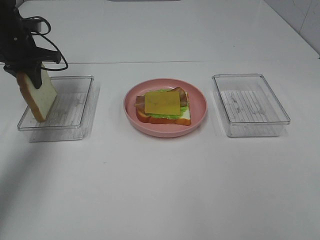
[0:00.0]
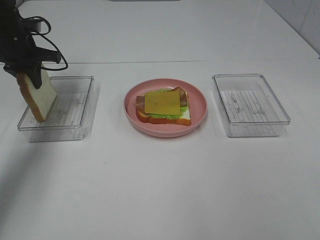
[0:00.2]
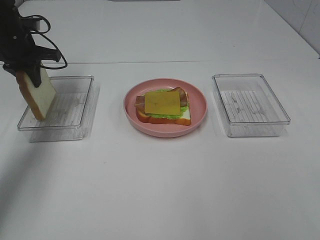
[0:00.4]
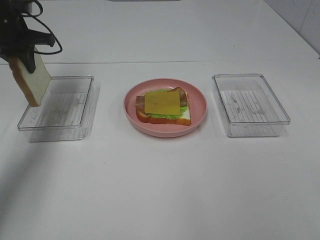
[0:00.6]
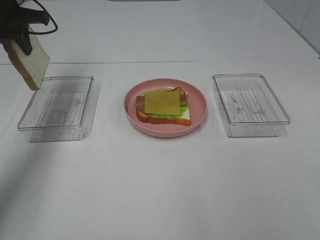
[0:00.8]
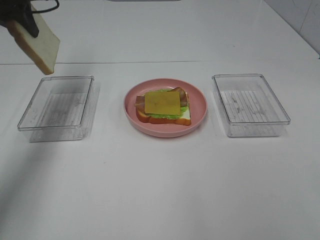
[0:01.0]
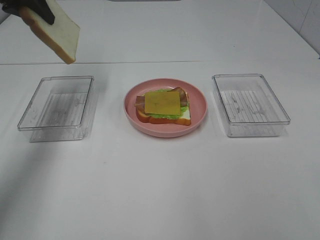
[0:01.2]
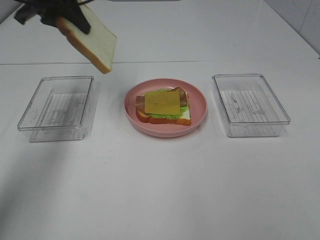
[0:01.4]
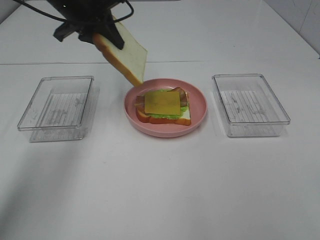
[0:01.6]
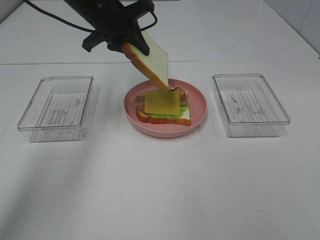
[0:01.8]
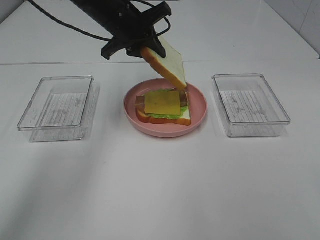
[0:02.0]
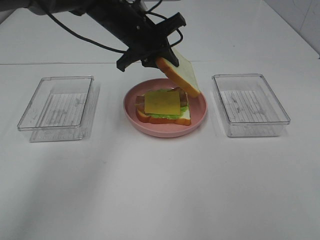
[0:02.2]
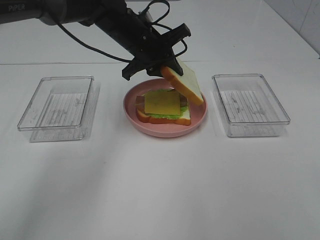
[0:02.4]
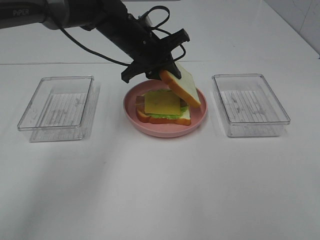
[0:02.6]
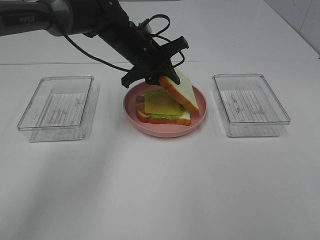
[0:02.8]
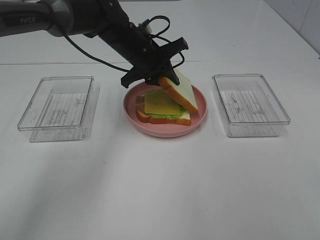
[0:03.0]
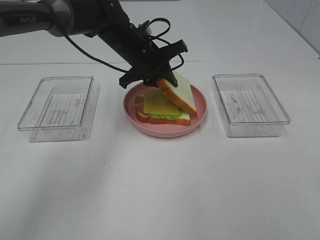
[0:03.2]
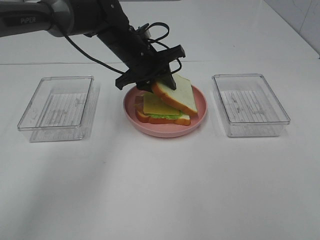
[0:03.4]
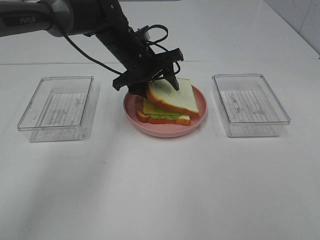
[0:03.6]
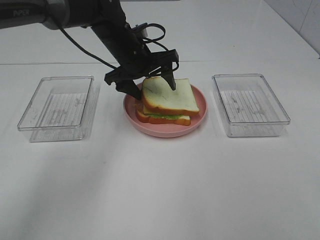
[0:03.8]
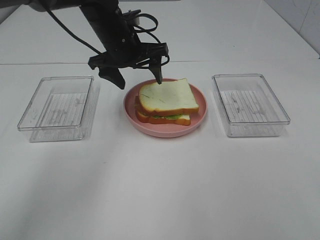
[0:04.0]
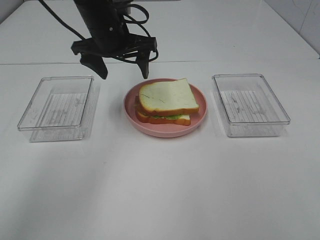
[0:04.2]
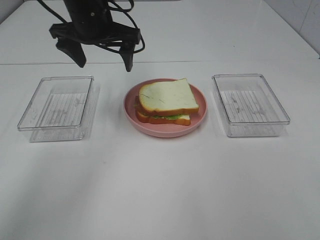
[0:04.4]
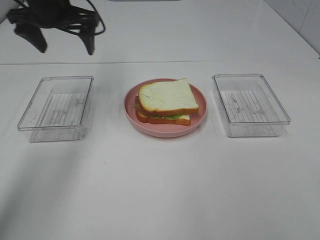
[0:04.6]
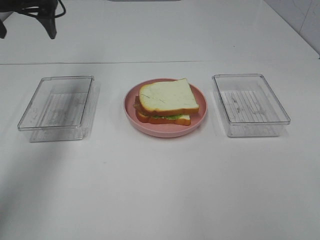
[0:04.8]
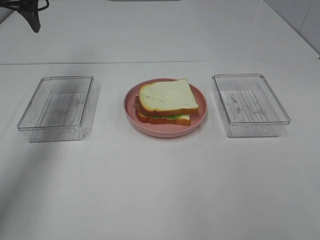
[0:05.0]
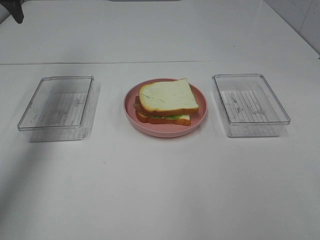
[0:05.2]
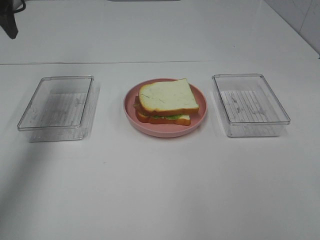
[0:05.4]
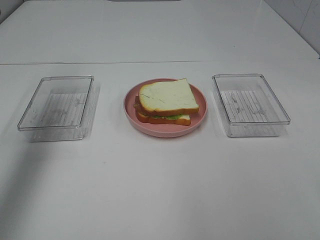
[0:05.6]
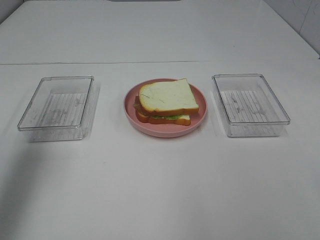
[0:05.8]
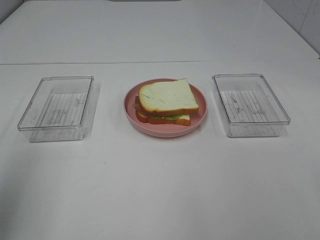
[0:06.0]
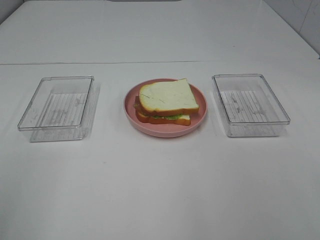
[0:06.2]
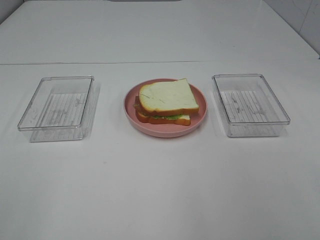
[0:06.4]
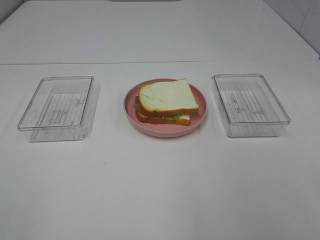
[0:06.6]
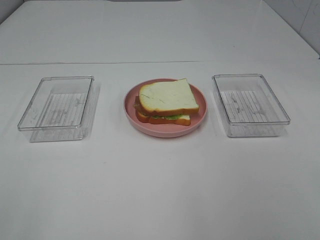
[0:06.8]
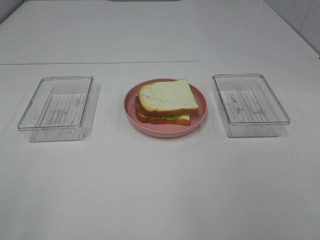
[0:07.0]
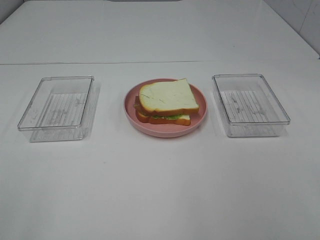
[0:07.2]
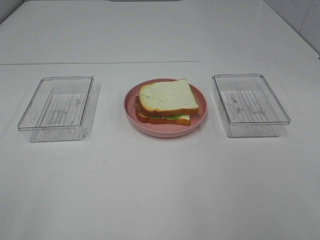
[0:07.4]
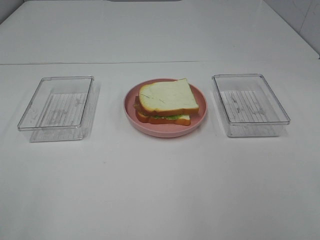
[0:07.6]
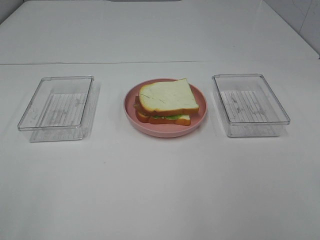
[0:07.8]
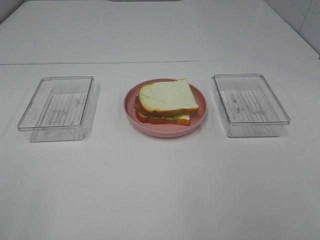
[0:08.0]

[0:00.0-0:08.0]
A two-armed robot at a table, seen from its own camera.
Task of the whole recording: Make sandwiches.
Step, 0:00.0 to 0:04.0: Left hand:place bacon on bacon.
0:00.0 to 0:01.6: The left gripper is displaced to the right and upward by some 15 cm.
0:01.6 to 0:03.2: The left gripper heads downward and to the right, covering some 15 cm.
0:03.2 to 0:04.8: The left gripper moves to the left and upward, approximately 25 cm, and opens.
0:04.8 to 0:06.4: The left gripper travels backward by some 50 cm.

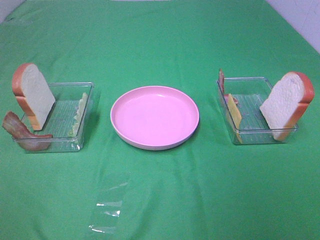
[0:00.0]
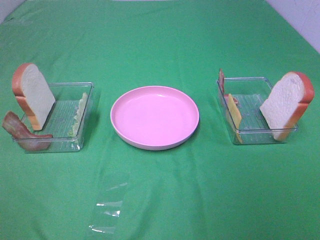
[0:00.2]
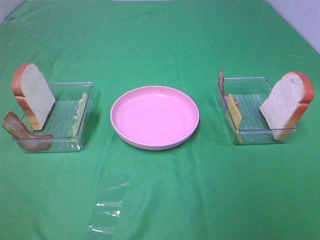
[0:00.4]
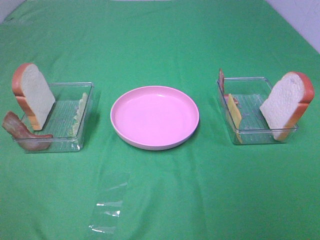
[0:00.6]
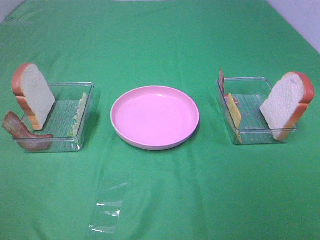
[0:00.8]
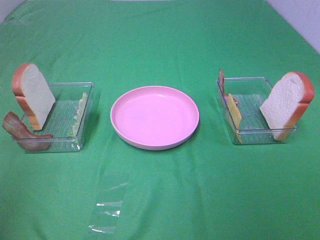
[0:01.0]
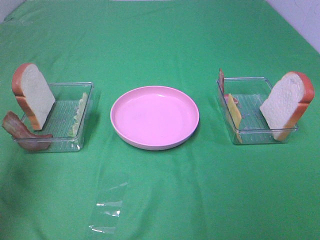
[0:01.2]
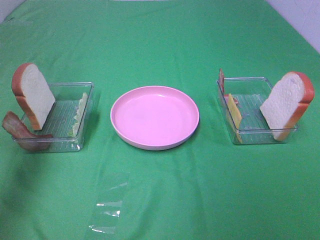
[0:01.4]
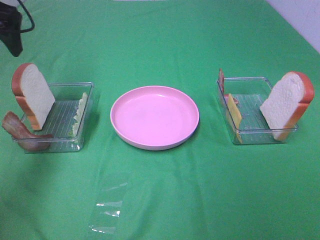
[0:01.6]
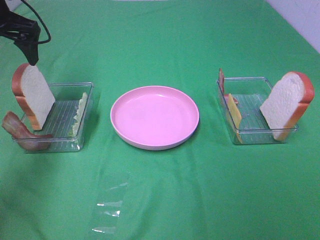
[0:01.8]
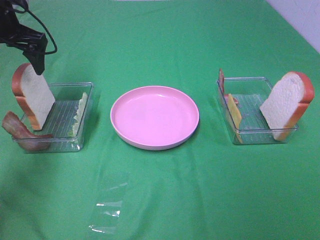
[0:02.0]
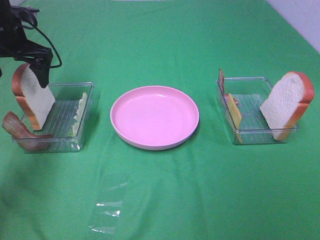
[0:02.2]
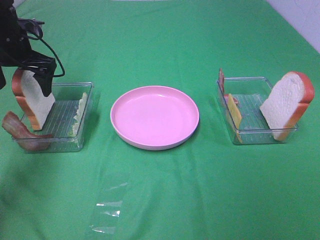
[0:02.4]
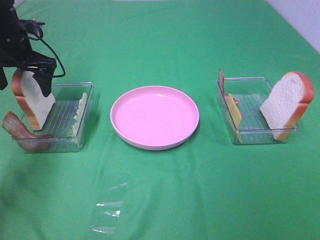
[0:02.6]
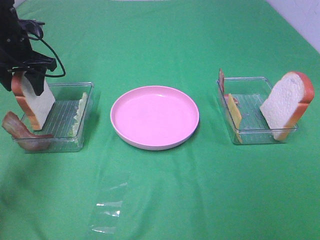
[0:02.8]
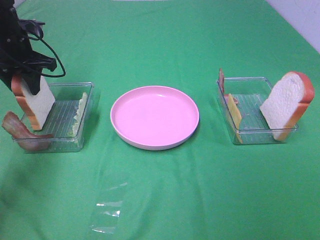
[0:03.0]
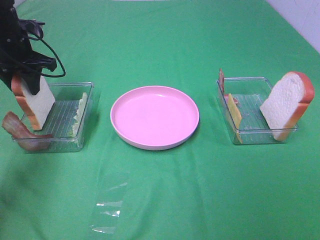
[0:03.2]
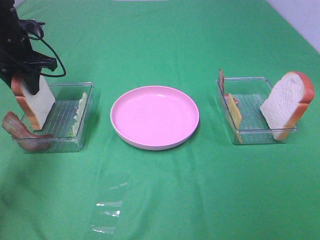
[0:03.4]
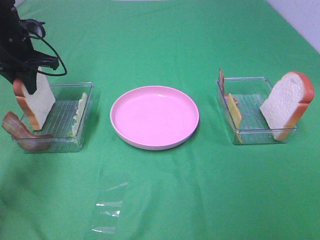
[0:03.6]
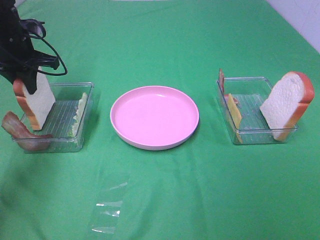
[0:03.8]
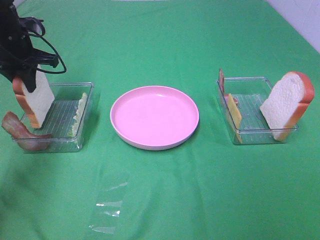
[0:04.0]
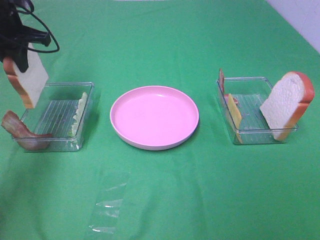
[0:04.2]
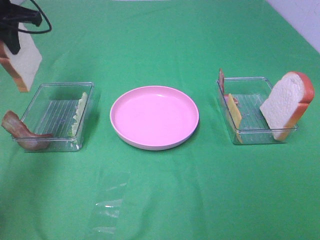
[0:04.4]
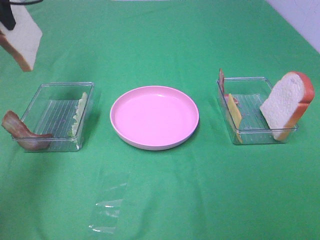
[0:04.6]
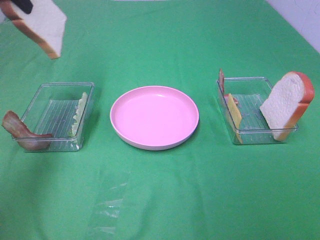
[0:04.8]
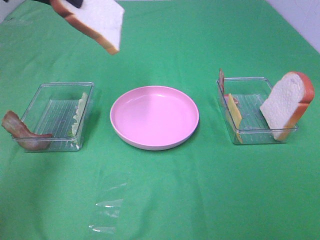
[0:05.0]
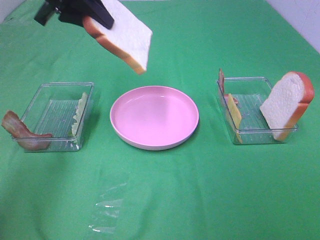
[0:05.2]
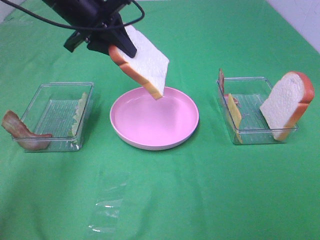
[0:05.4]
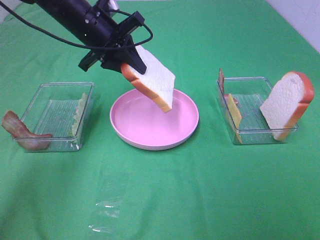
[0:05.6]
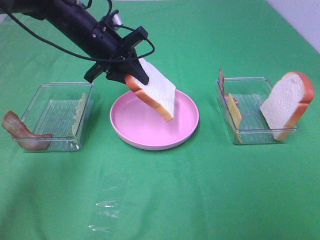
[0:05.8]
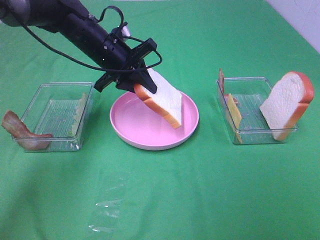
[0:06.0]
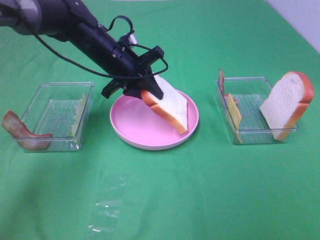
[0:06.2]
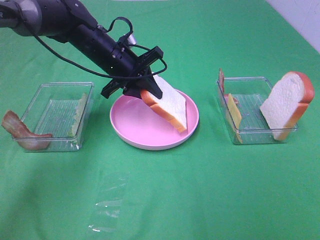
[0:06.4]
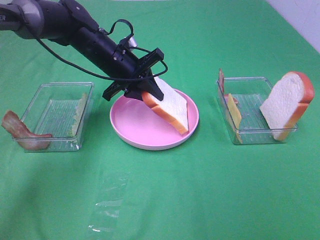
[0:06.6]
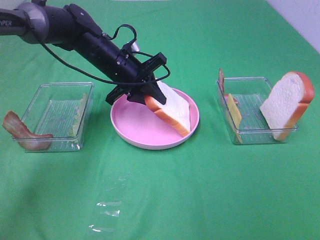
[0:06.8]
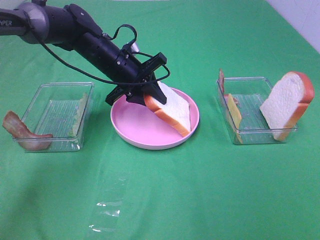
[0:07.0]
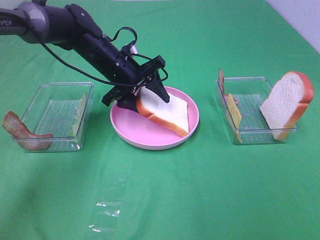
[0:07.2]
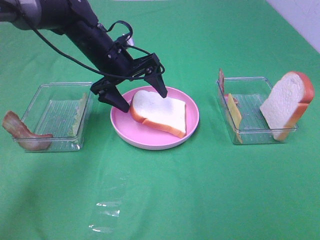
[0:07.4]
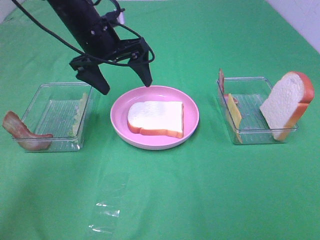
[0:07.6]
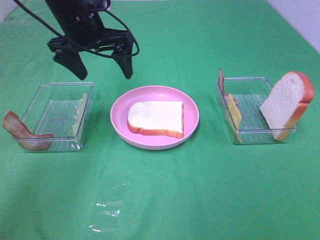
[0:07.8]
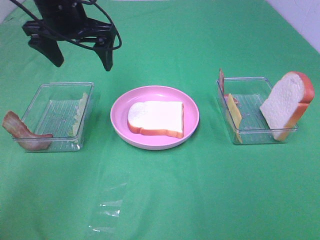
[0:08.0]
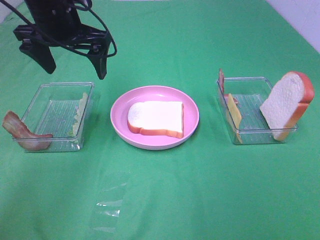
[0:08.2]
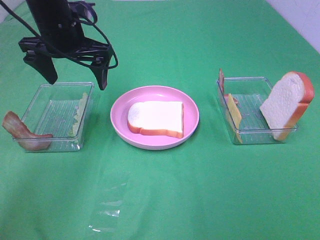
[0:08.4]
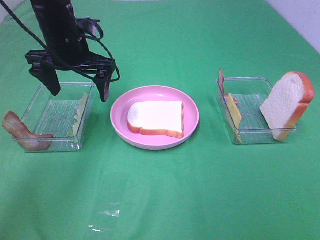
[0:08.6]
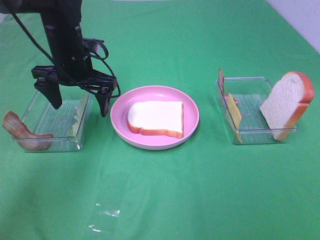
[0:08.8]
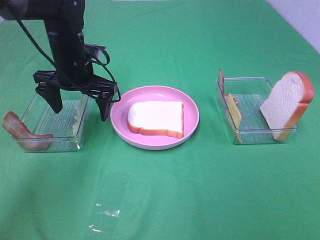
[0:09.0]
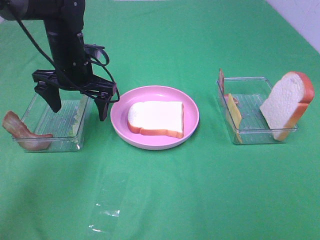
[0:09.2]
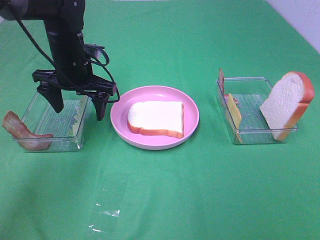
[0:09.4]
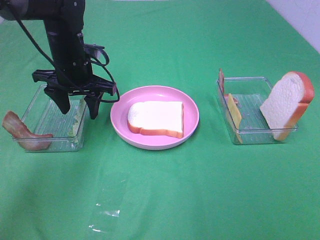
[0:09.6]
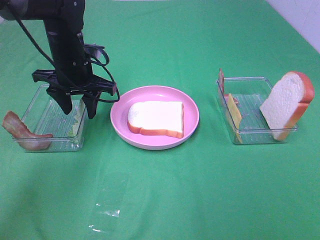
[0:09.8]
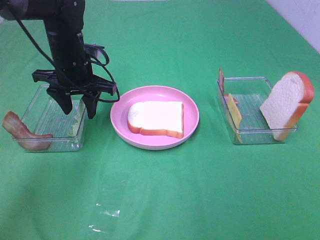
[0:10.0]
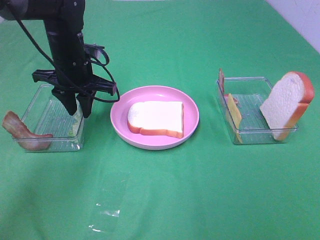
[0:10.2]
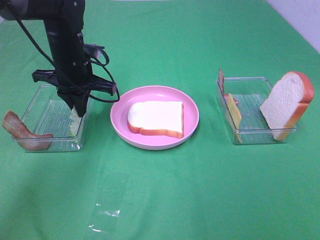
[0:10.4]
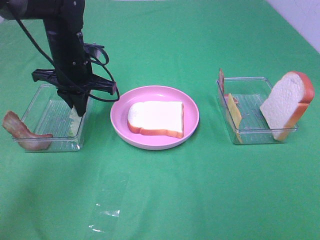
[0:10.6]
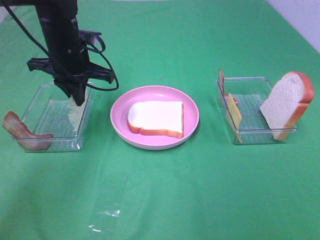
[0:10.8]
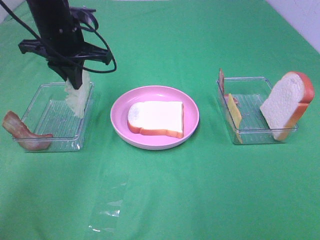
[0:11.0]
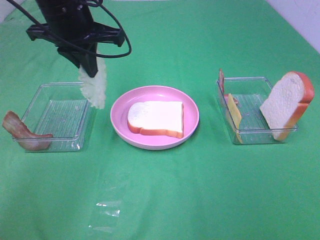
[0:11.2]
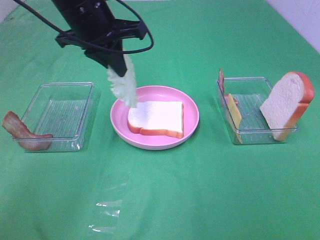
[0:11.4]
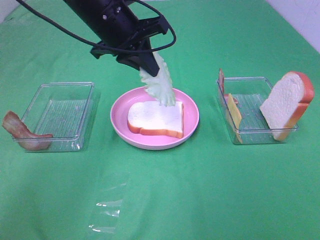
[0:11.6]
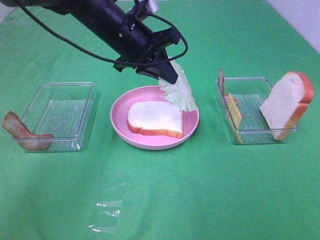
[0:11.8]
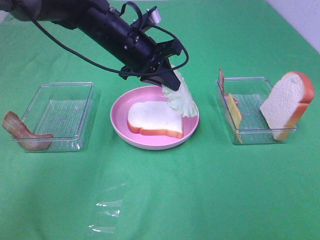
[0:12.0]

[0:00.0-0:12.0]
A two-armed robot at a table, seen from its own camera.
Task of the whole recording: Make sandwiches.
Step, 0:00.0 to 0:03.8: Left hand:grab the bread slice.
Step, 0:04.0 to 0:07.4: Left hand:place the bread slice on the plate.
Step, 0:07.6 to 0:10.6: Left hand:grab the lettuce slice.
0:00.0 to 0:01.6: The left gripper heads forward, covering about 40 cm.
0:01.6 to 0:03.0: The left gripper goes roughly 15 cm downward and forward, and closes up.
0:03.0 to 0:04.4: The left gripper travels upward by some 10 cm.
0:04.4 to 0:06.0: The left gripper heads to the right and downward, covering some 20 cm.
0:06.0 to 0:07.6: The left gripper goes approximately 5 cm upward, and opens.
0:07.6 to 0:09.0: The left gripper goes approximately 5 cm downward.
0:09.0 to 0:10.4: The left gripper closes its fingers.
0:10.4 to 0:12.0: The left gripper heads to the right, covering about 10 cm, and travels upward and back again, roughly 10 cm each way.

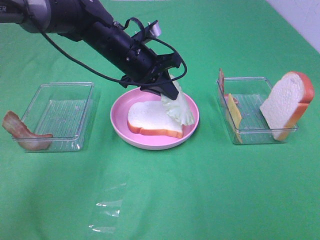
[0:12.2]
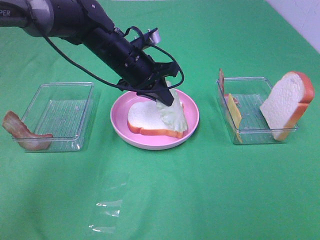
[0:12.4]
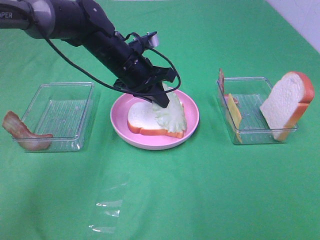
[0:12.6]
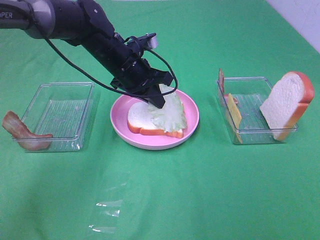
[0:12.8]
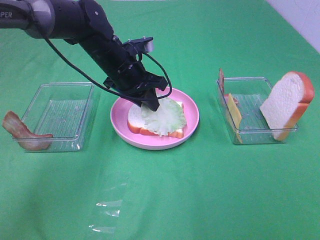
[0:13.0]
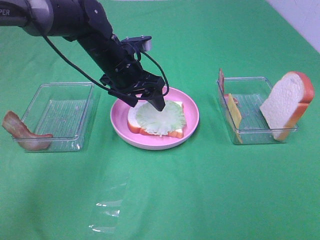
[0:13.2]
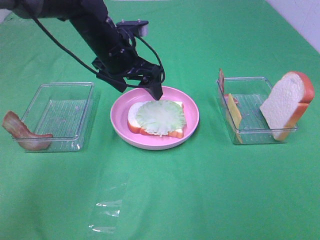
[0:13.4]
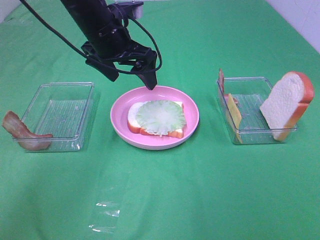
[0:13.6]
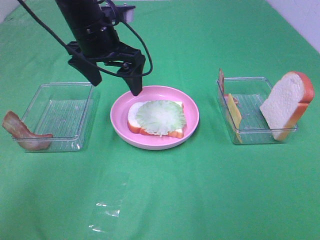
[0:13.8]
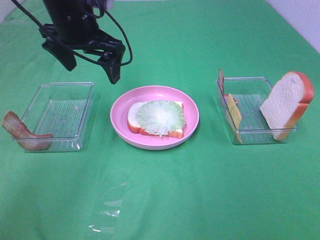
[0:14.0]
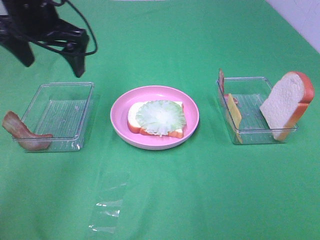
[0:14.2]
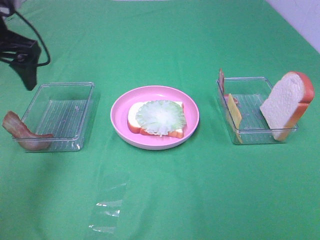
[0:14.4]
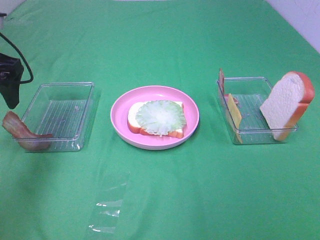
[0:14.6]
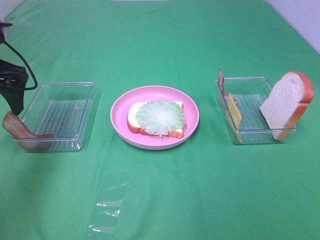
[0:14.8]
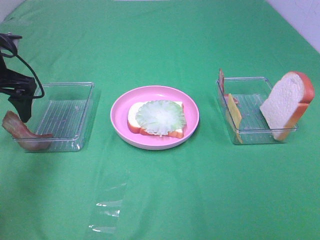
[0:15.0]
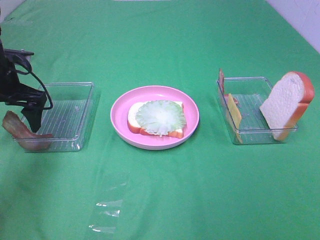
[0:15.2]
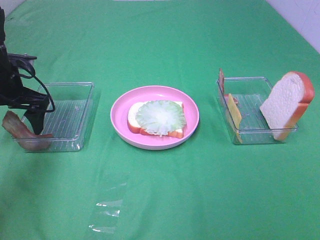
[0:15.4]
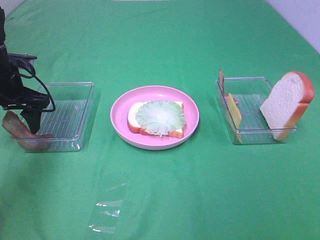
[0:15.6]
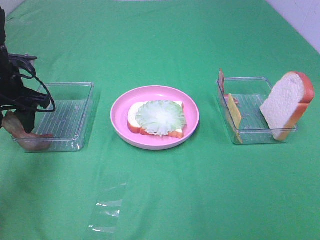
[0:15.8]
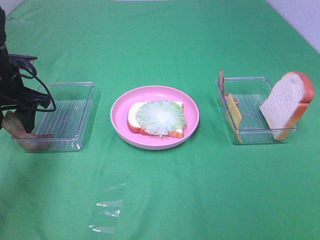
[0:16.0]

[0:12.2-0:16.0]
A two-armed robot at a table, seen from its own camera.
Task of the whole recording: Make sandwiches.
0:12.2 to 0:13.4: The left gripper opens up.
0:13.4 to 0:14.8: The left gripper goes some 20 cm to the left.
0:14.8 to 0:16.0: The left gripper is displaced downward by roughly 10 cm, and closes.
